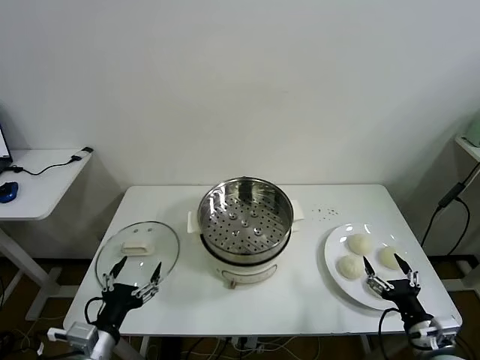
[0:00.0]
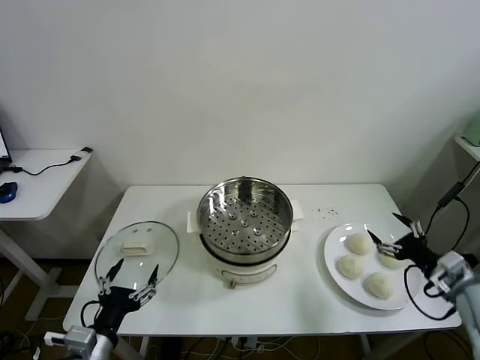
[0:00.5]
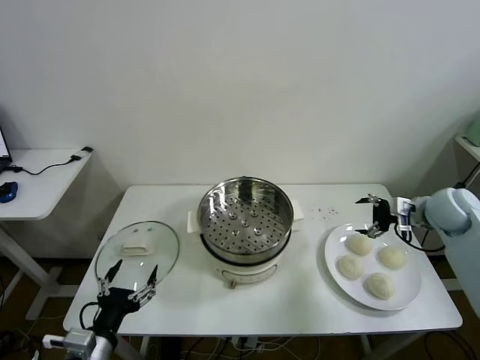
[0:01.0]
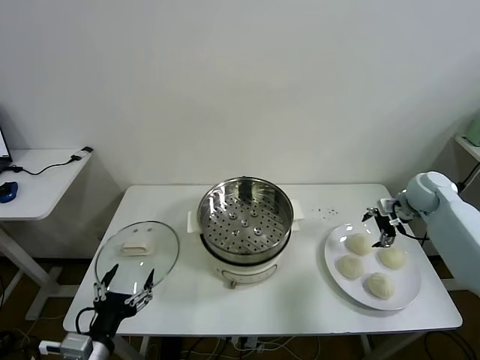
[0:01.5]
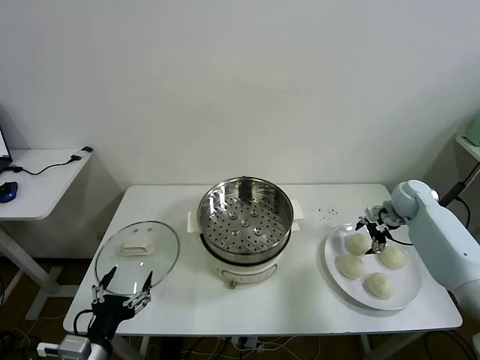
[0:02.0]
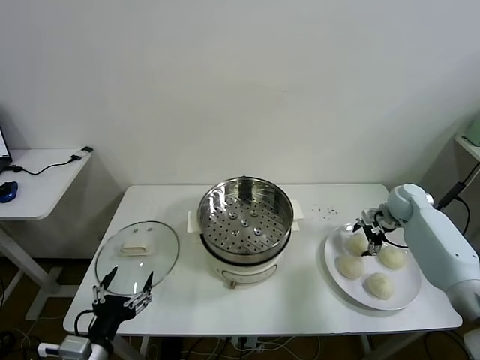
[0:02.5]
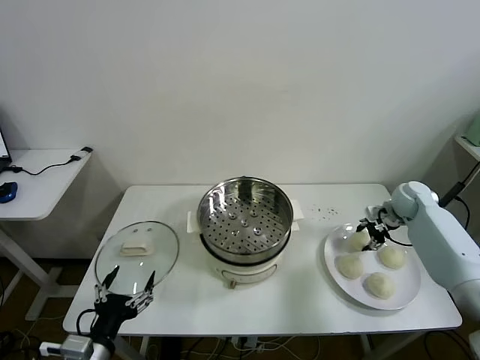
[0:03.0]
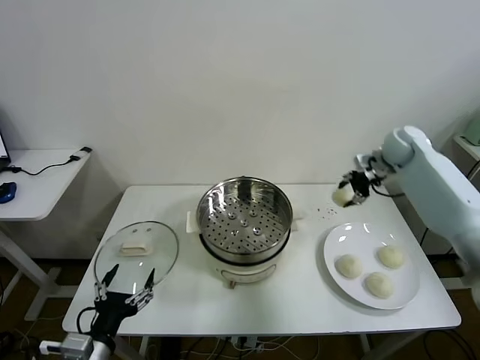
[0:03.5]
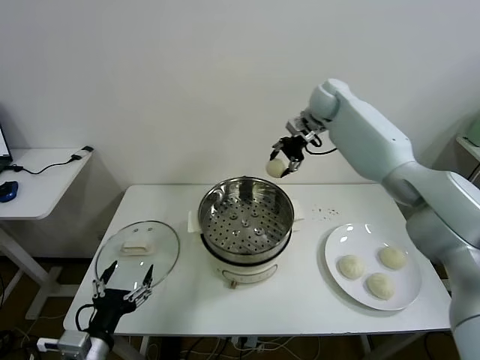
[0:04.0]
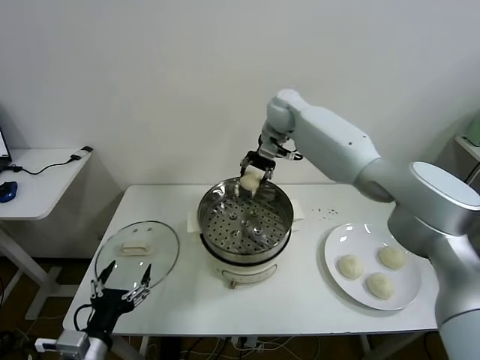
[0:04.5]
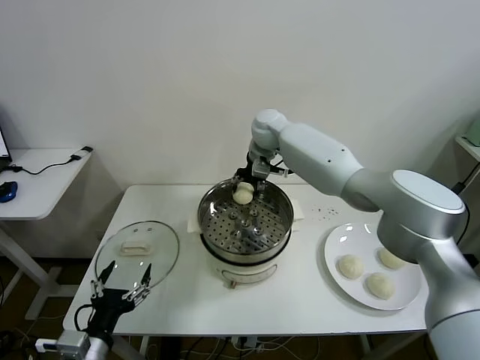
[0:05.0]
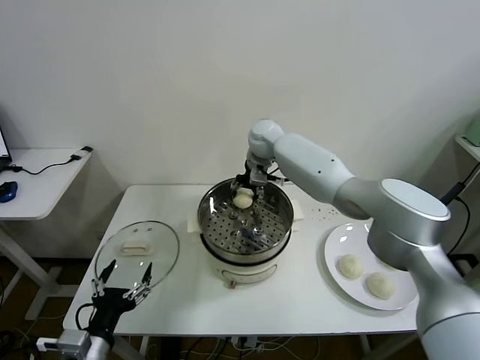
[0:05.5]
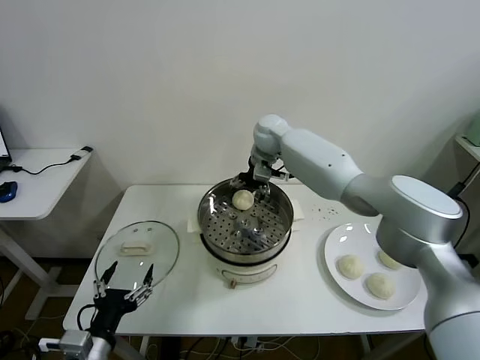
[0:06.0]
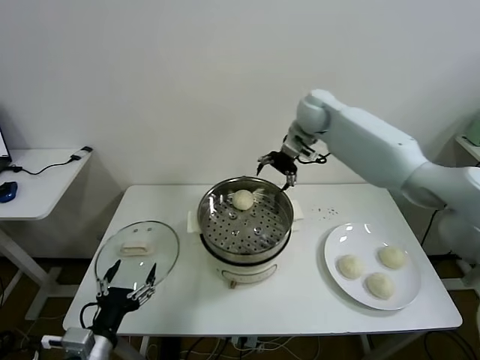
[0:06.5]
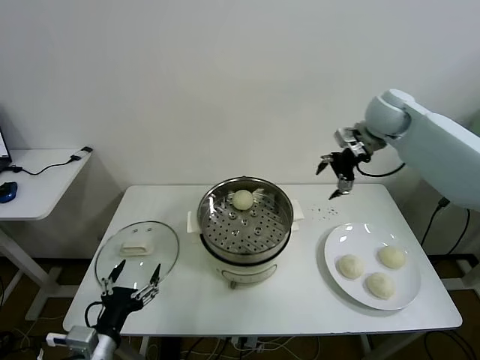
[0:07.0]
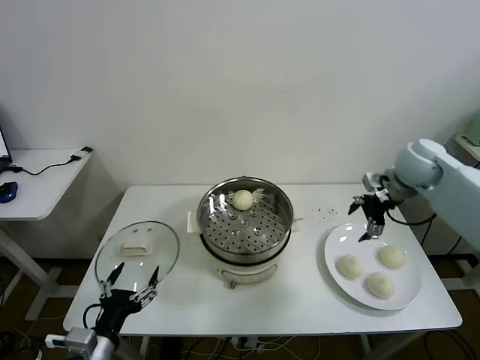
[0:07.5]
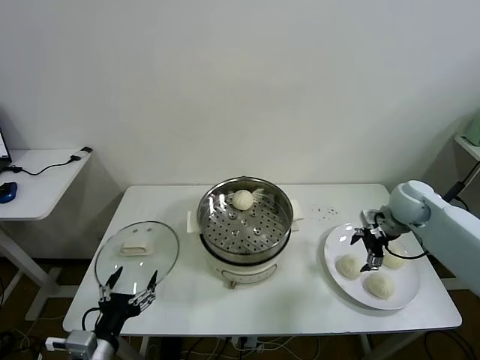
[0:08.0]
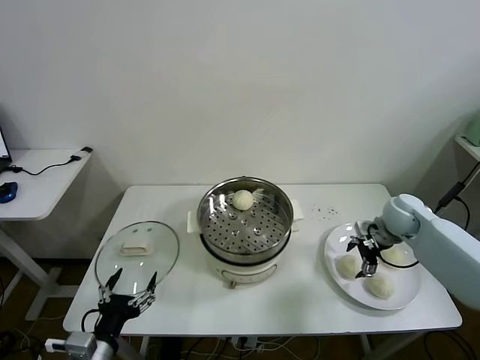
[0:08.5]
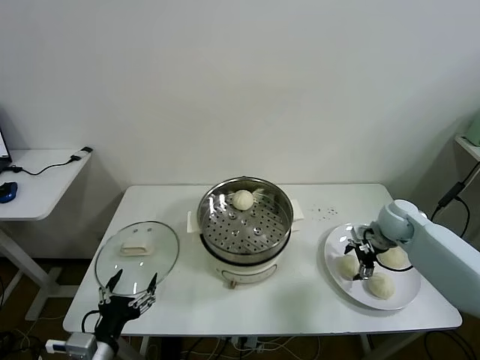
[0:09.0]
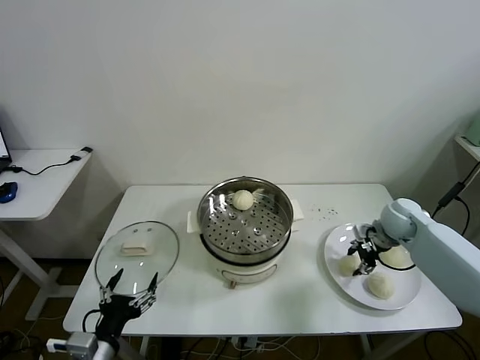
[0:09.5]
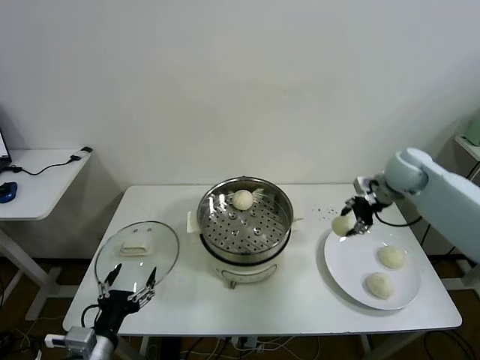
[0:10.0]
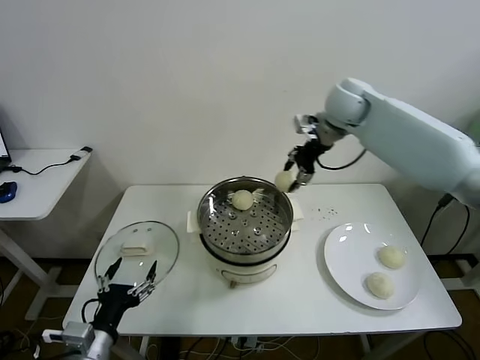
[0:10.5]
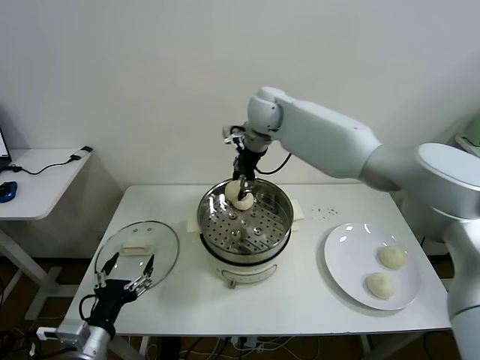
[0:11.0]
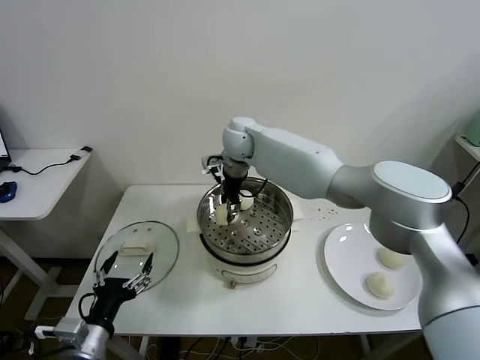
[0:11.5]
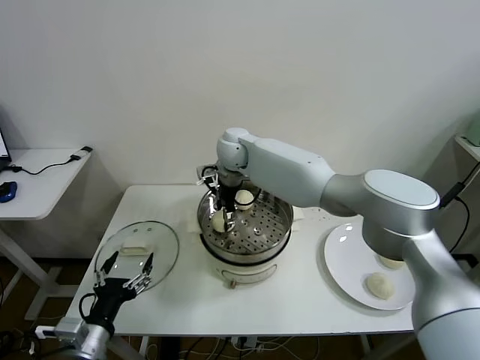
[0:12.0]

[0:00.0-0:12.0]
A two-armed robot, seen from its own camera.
Task of the whole recording: take steamed baozi put them in steamer then cover it.
Step, 0:00.0 to 0:02.5: Grasp the baozi in the plate with right gripper.
Step, 0:03.0 to 0:05.5: Place the baozi on the steamer with right gripper.
Step, 0:06.0 to 0:09.0: Grasp the baozi in the plate with right gripper.
0:02.0 to 0:04.0: The right gripper shifts some 35 cm to the left, upward and forward, and closes.
0:04.0 to 0:06.0: The right gripper heads to the left and downward, covering roughly 10 cm, and opens up.
0:06.0 to 0:08.0: The right gripper travels to the right and backward by approximately 35 cm.
0:08.0 to 0:10.0: The right gripper shifts approximately 10 cm upward and forward, and closes.
0:10.0 to 0:12.0: The right gripper goes roughly 40 cm to the left, and opens.

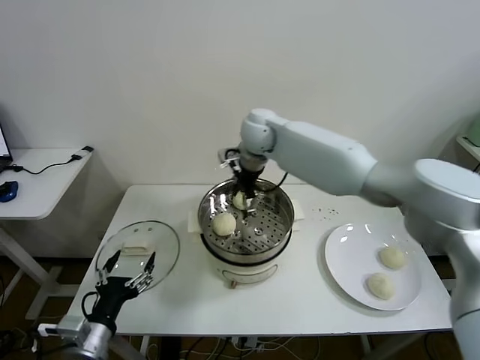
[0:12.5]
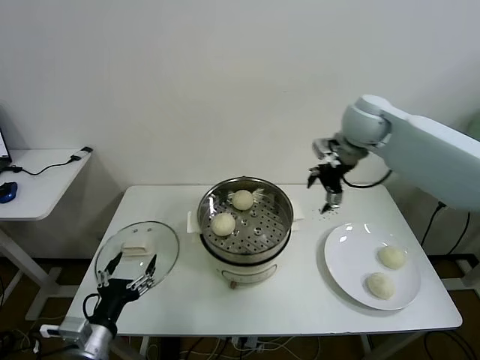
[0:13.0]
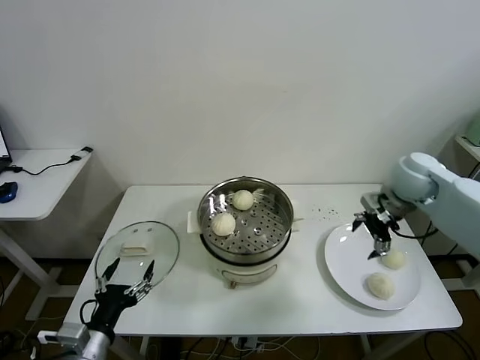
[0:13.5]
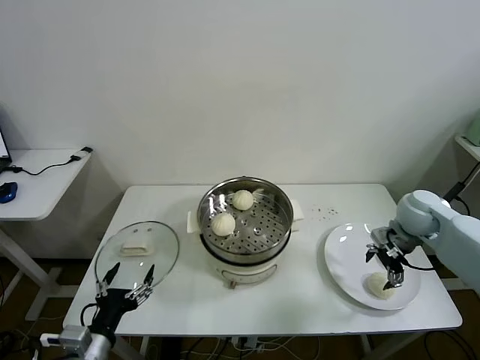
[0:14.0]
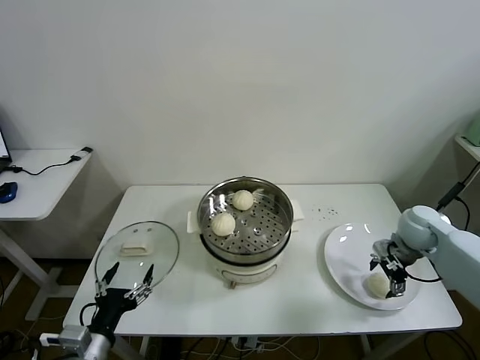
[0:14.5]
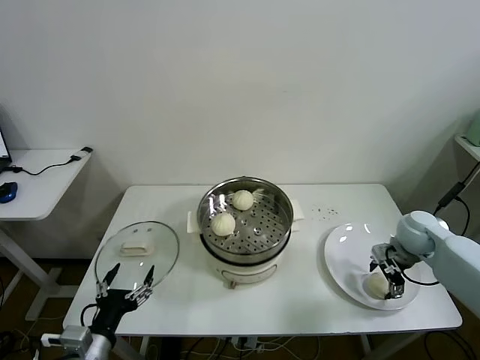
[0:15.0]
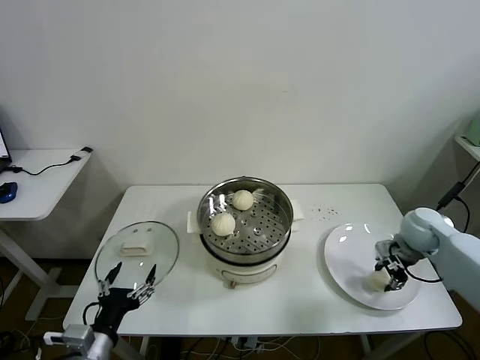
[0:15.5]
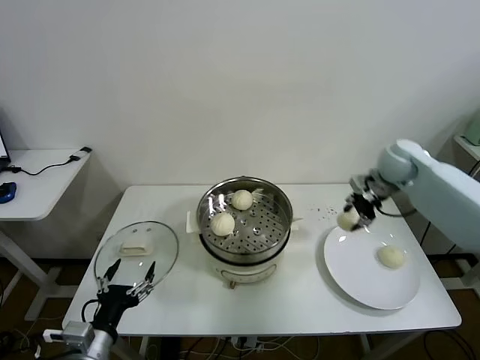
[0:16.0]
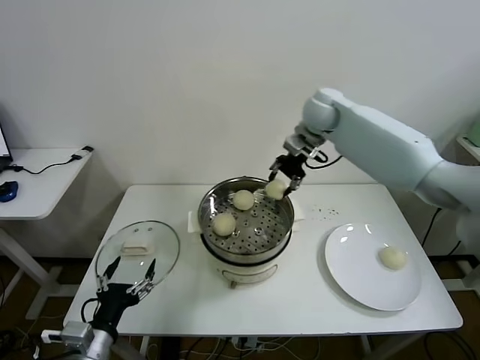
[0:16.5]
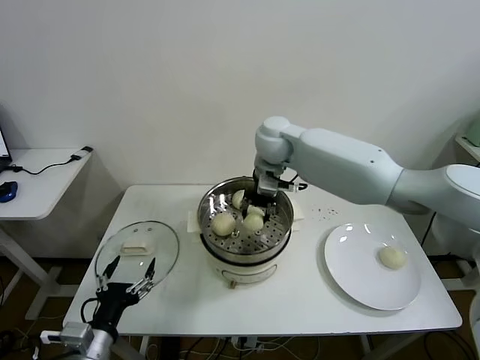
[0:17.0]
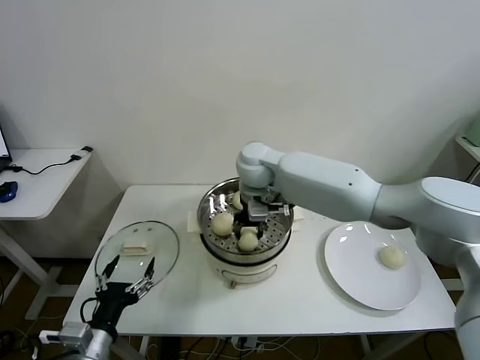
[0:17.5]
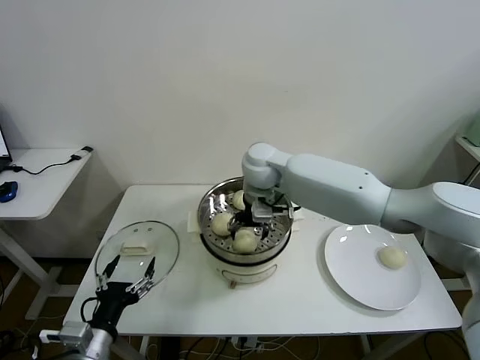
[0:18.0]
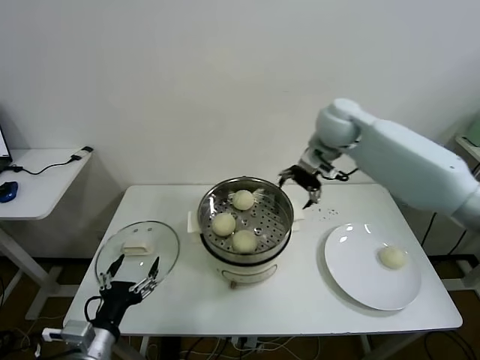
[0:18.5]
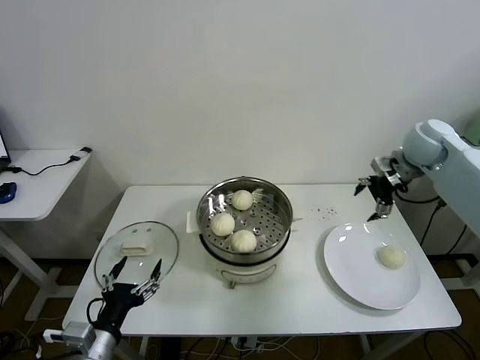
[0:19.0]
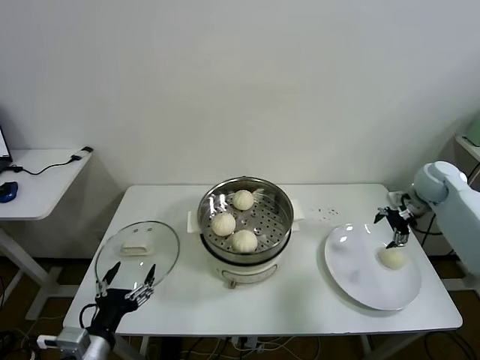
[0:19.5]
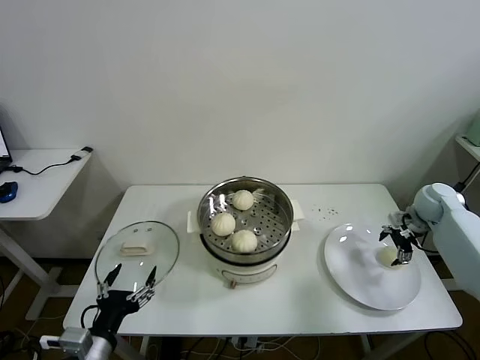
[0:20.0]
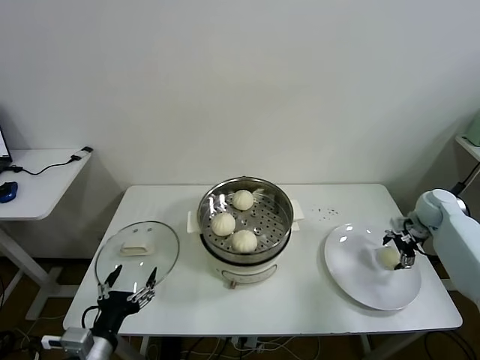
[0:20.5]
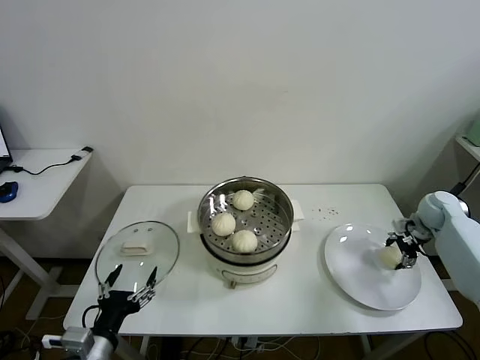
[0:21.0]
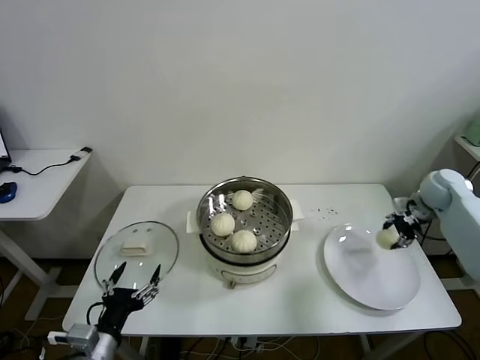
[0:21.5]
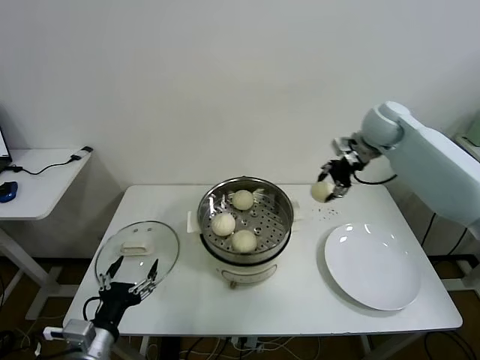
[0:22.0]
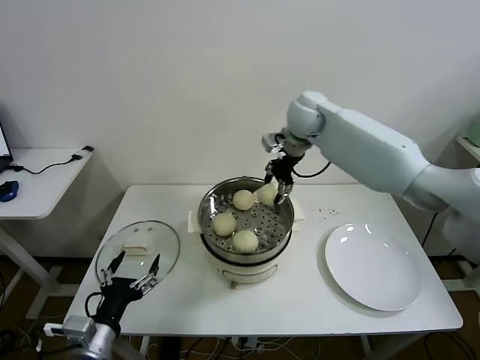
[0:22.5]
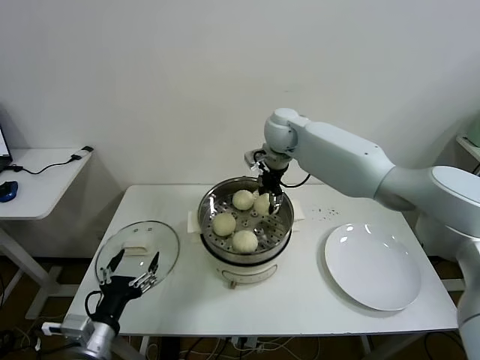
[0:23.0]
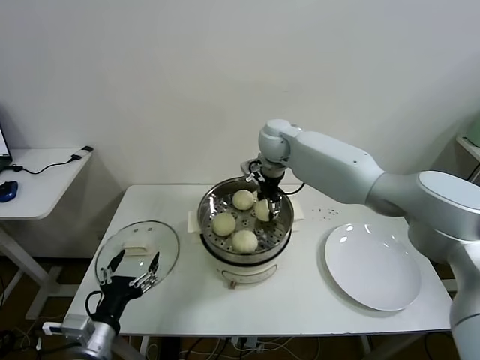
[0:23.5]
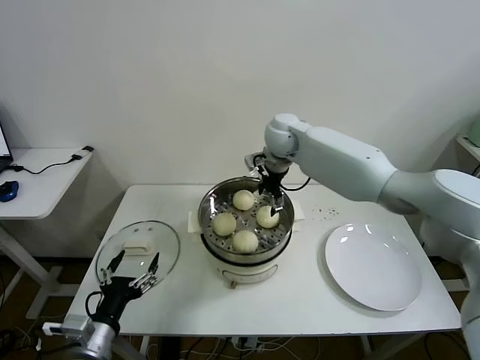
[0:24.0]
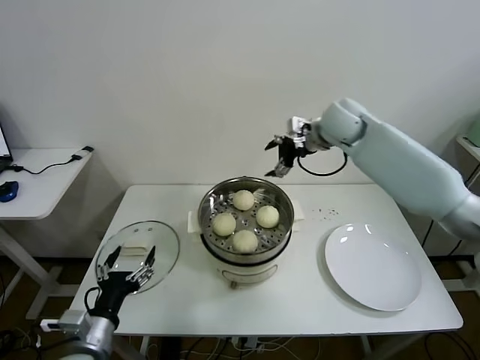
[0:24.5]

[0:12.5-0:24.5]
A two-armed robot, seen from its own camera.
Task of the whole recording: take steamed baozi put them in steamer then cover it.
Step, 0:12.5 to 0:15.0: Grasp the baozi in the plate with right gripper.
Step, 0:15.5 to 0:18.0: Place the baozi on the steamer with right gripper.
Step, 0:18.5 to 0:21.0: Grasp the baozi in the plate with right gripper.
Step, 0:21.5 to 0:23.5: Place the baozi on the steamer with right gripper.
0:12.5 to 0:14.5: The right gripper moves to the right and downward, roughly 40 cm.
0:14.5 to 0:16.5: The right gripper is displaced to the left, upward and forward by approximately 35 cm, and closes its fingers.
0:16.5 to 0:18.5: The right gripper travels to the left and back again, approximately 15 cm each way, and opens.
0:18.5 to 0:20.5: The right gripper heads to the right and downward, covering some 35 cm.
0:20.5 to 0:22.5: The right gripper shifts roughly 40 cm to the left and upward, and closes up.
0:22.5 to 0:24.5: The right gripper goes approximately 10 cm to the right, and opens up.

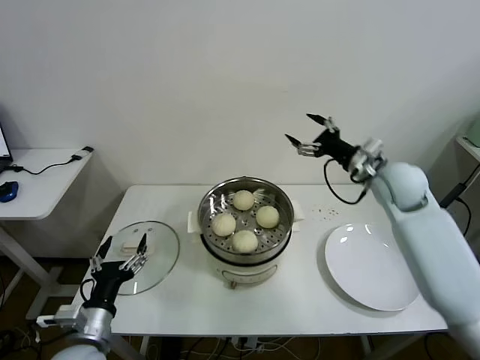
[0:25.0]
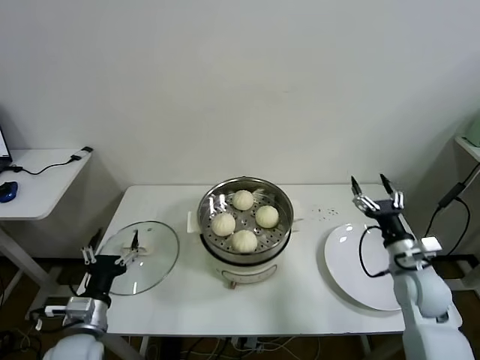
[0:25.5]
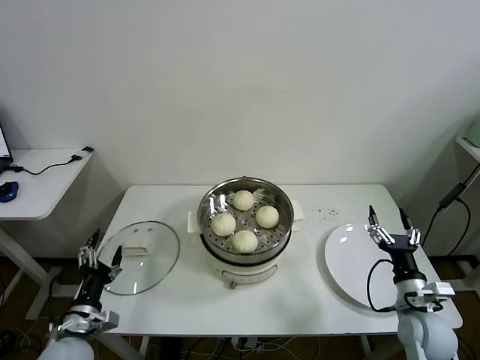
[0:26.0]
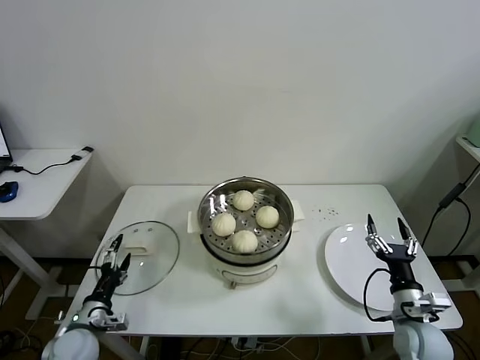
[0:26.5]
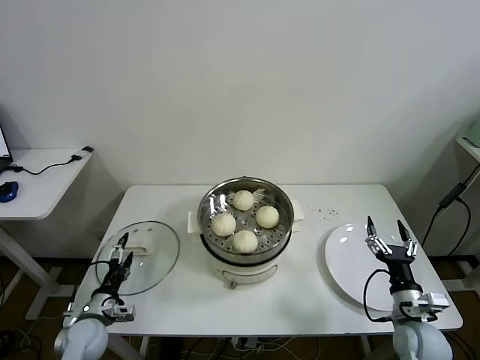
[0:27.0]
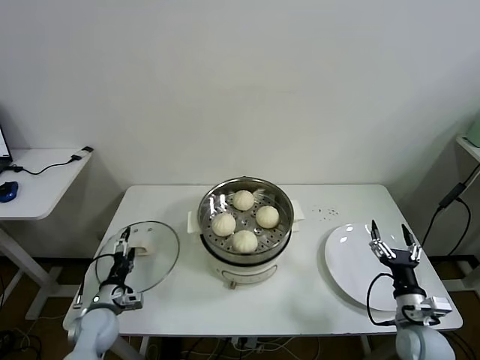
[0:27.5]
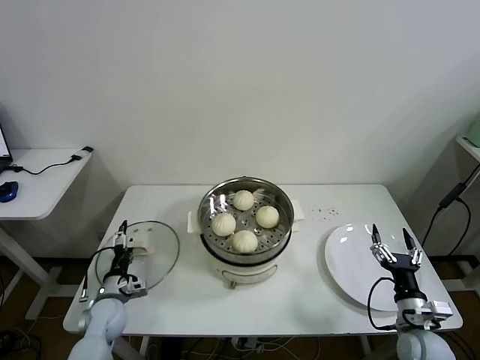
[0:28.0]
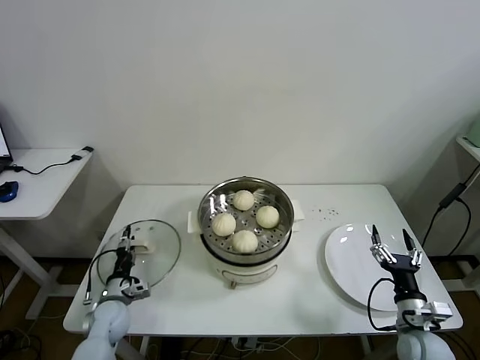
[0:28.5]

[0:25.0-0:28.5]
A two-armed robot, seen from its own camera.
Task of the whole recording: take steamed baozi put them in steamer then cover it.
0:25.0 to 0:27.0: The right gripper is displaced backward and downward by some 35 cm. The left gripper goes roughly 20 cm downward, forward and to the left.
0:27.0 to 0:28.5: The left gripper goes roughly 5 cm forward.
